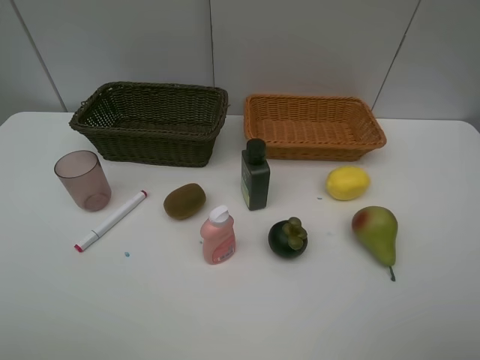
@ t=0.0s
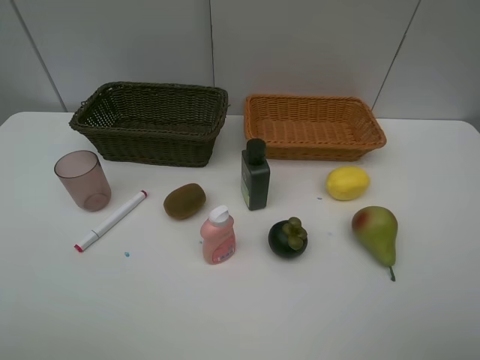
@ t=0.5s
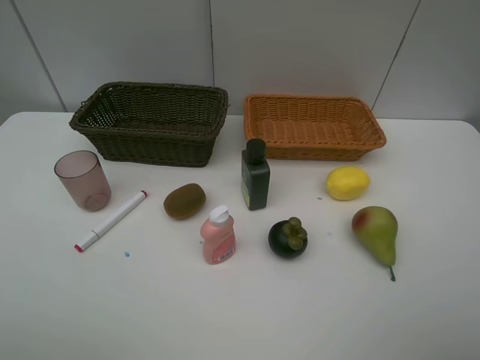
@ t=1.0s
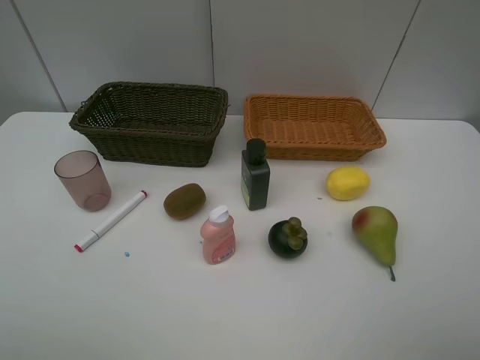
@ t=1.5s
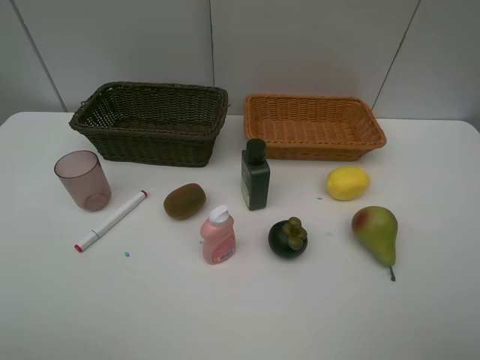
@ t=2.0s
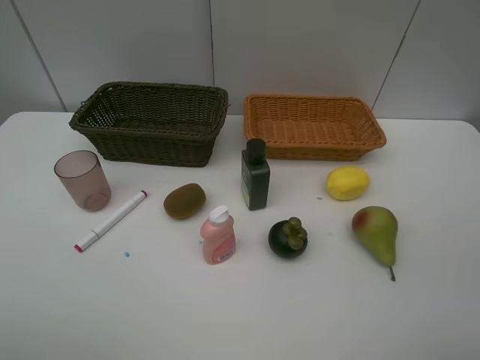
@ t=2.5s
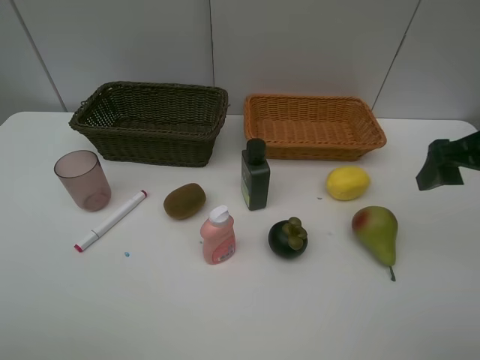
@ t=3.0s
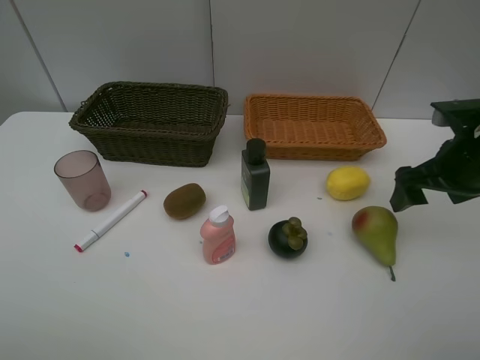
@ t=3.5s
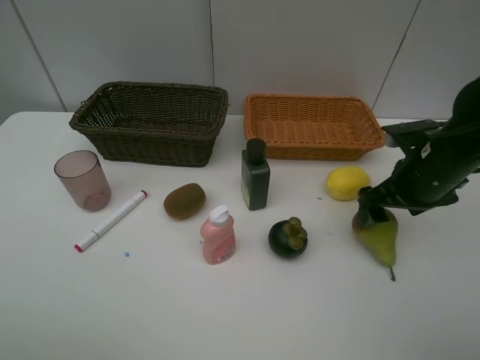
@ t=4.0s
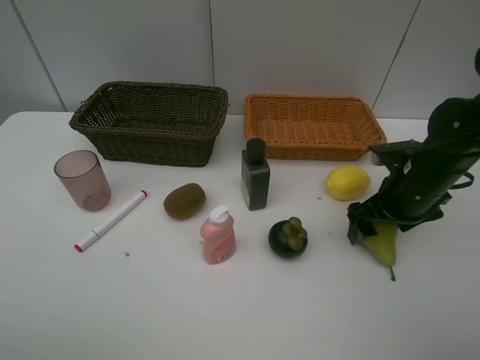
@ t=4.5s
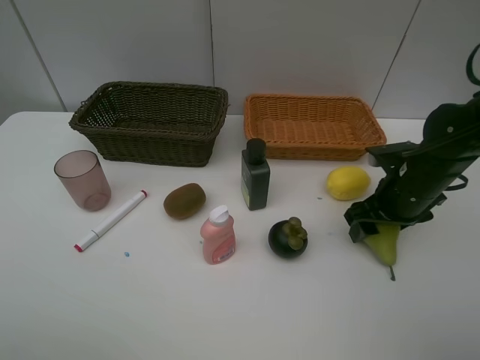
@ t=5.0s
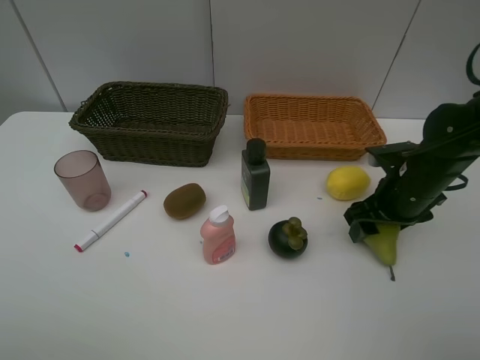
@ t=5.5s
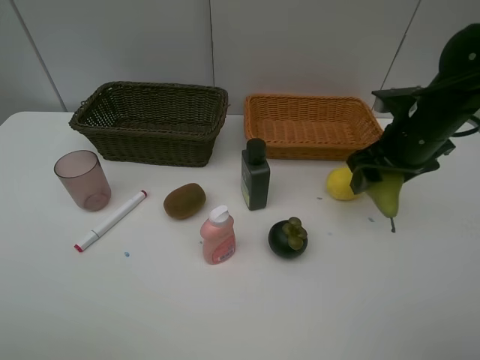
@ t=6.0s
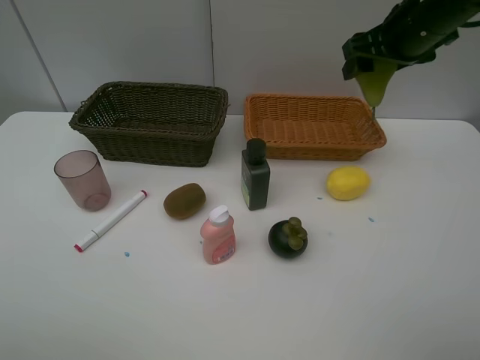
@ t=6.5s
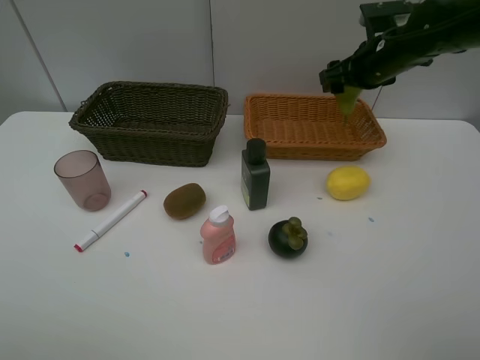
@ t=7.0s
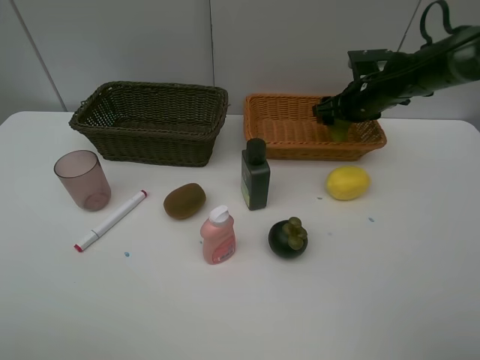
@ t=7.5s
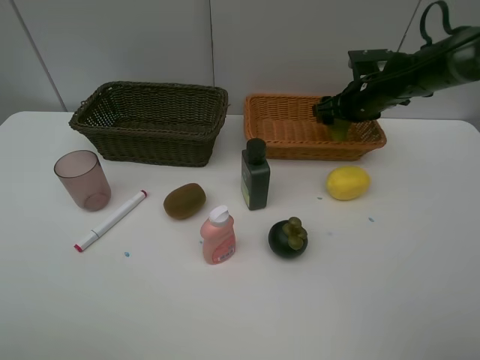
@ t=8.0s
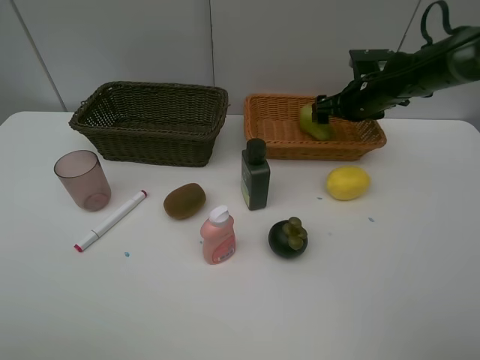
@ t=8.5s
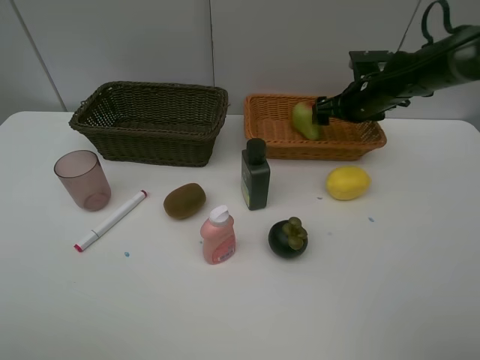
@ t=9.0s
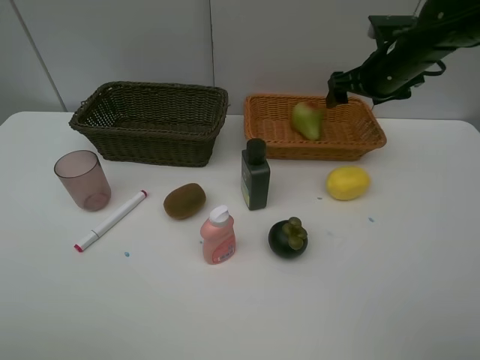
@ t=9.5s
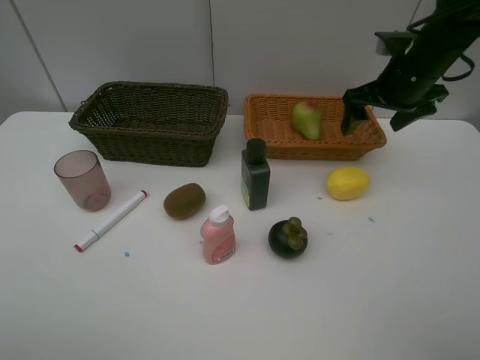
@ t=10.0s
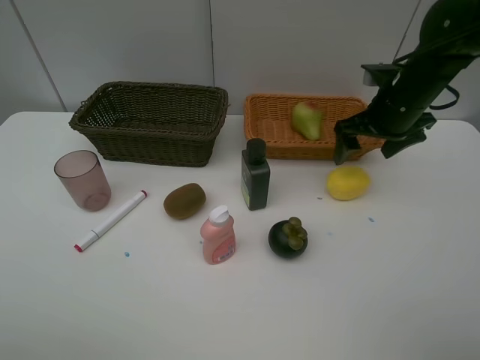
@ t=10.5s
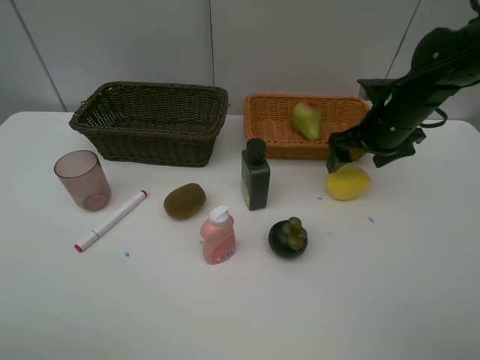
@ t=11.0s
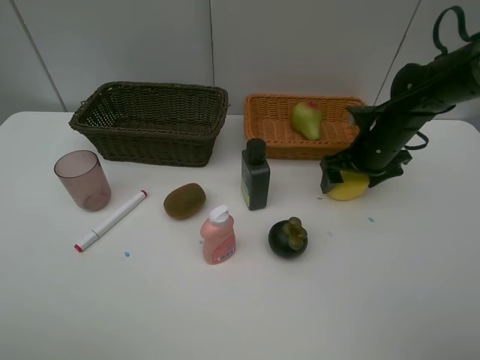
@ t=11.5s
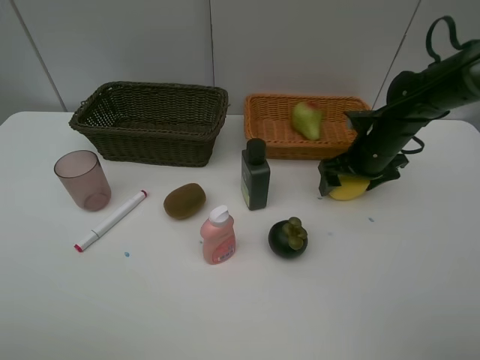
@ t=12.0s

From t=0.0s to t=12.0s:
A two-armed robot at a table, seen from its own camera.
Task of the whole recording: Place multiple objects separately in different baskets.
Step, from t=0.0s to t=5.5s: Pick up the pear with right gripper.
Step, from t=6.0s to t=9.0s: Place the pear in the light basket with right gripper.
From t=2.0s to t=4.0s: The right gripper shifts some 30 cm forward and downward.
From t=4.0s to t=6.0s: The right gripper moves approximately 5 cm.
From t=6.0s to t=8.0s: The right gripper travels forward by some 15 cm, and goes upward and returns, roughly 10 cm each way.
From t=8.0s to t=10.0s: The right gripper moves upward and backward, approximately 10 cm.
From t=10.0s to t=12.0s: The right gripper moves downward, approximately 10 cm.

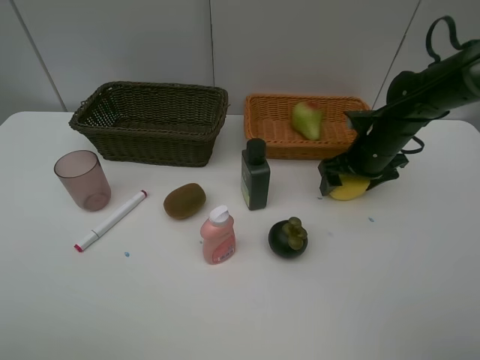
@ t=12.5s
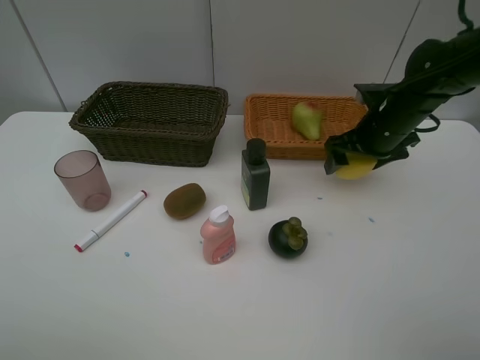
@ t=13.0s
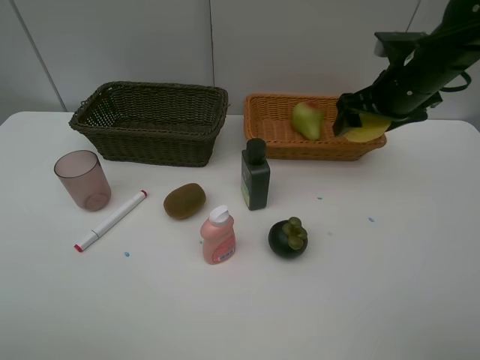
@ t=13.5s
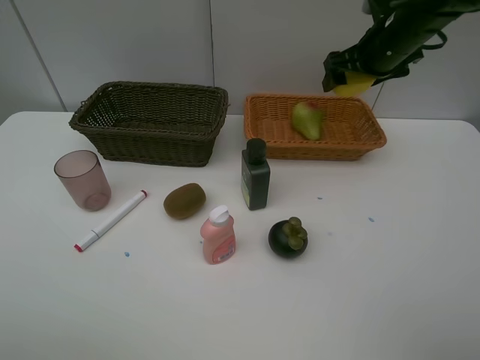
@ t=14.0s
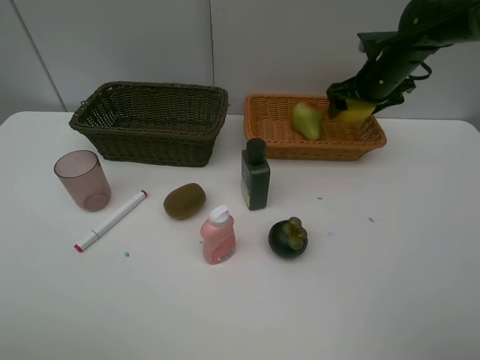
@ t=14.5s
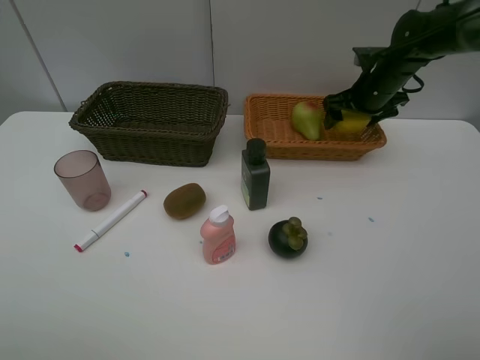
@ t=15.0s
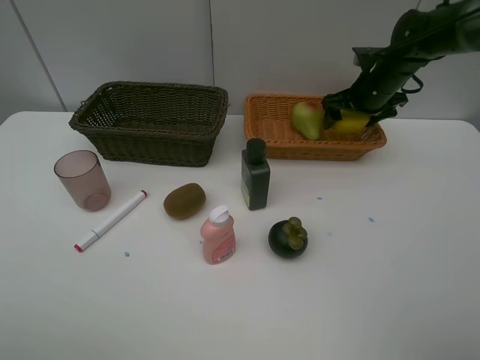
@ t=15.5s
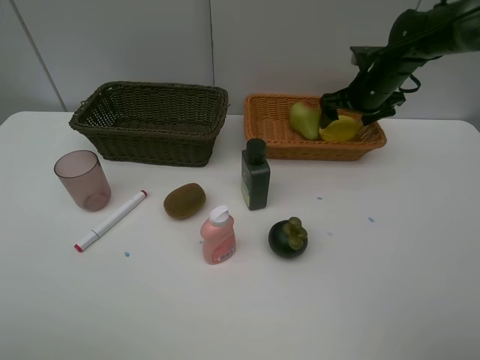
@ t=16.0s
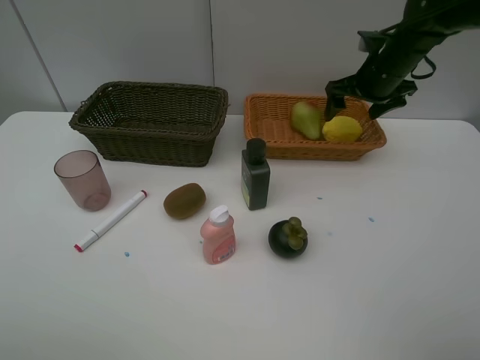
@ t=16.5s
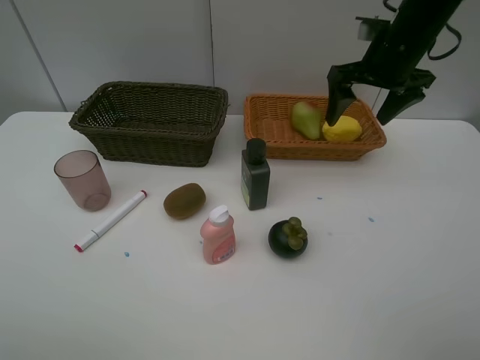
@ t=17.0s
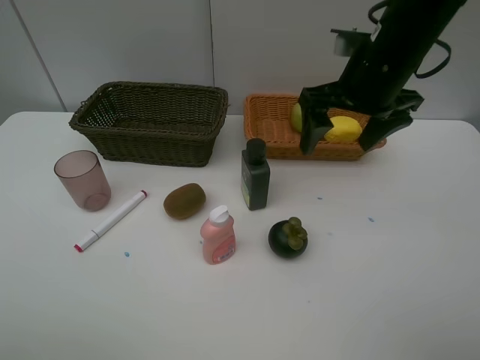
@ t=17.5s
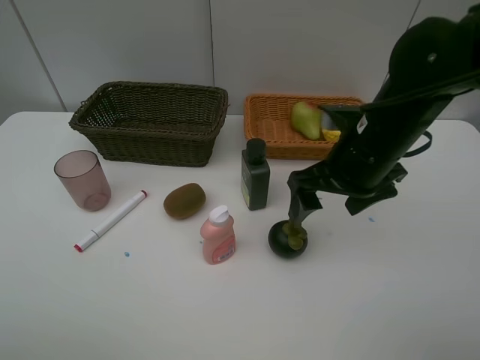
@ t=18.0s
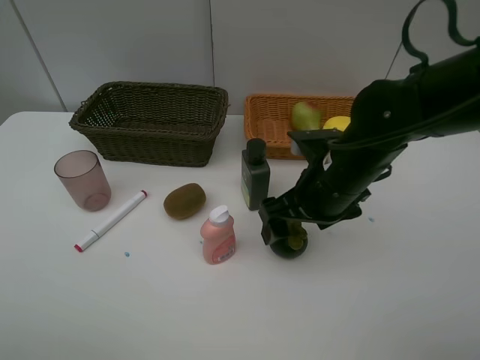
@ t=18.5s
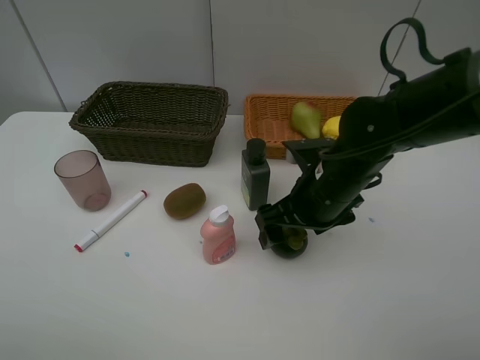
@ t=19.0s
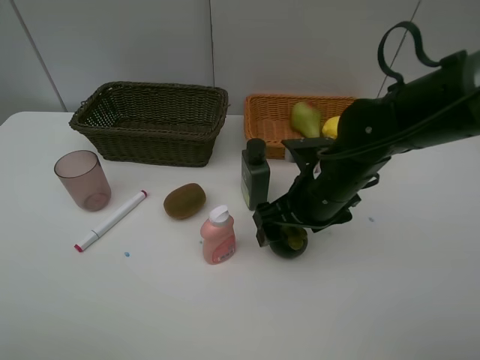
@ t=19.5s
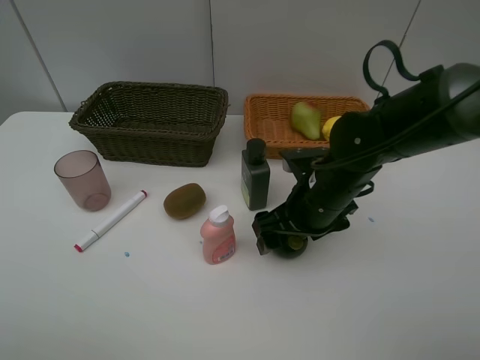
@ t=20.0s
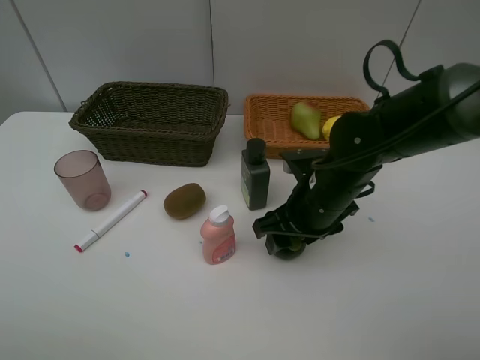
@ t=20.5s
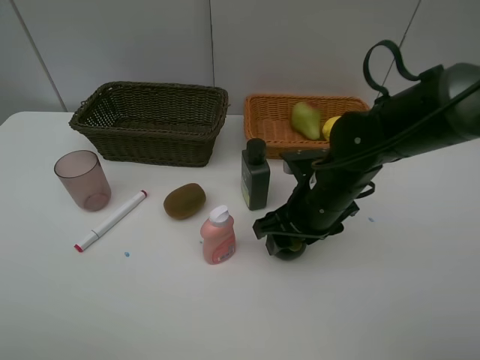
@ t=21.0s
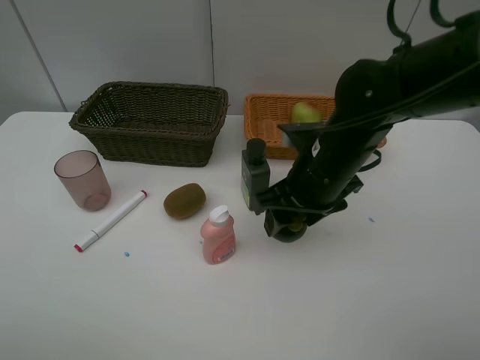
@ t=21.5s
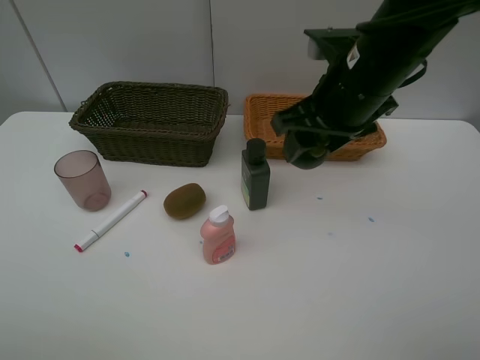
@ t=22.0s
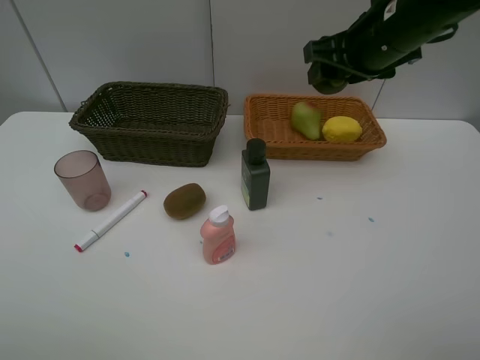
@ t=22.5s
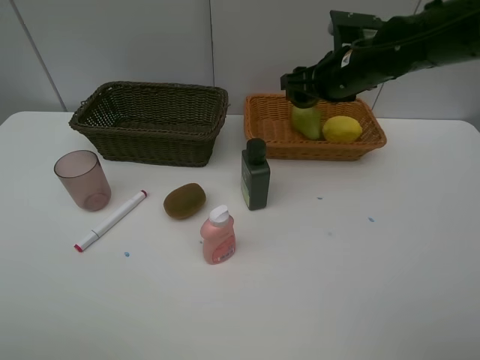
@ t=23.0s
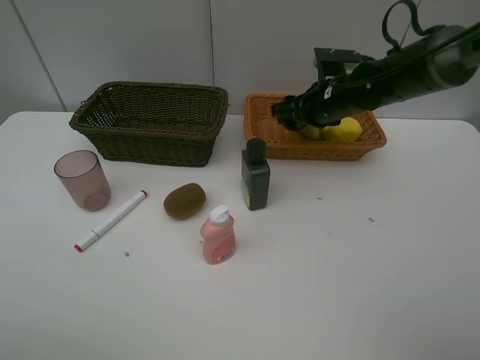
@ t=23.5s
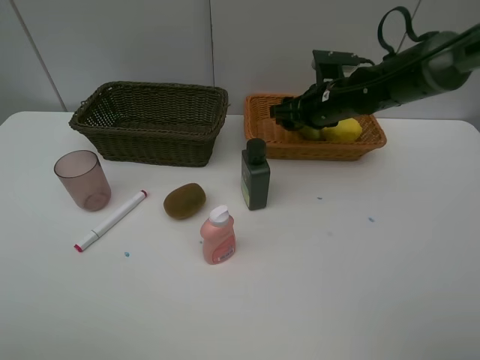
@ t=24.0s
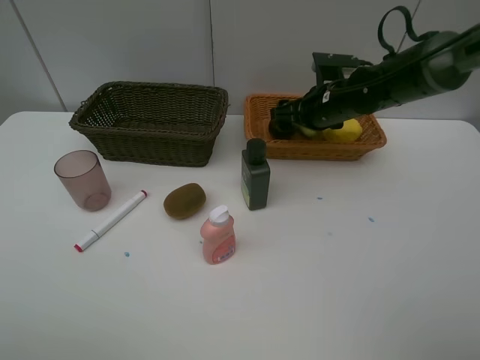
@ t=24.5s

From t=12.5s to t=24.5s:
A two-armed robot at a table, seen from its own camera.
Task of the whole recording: Place multiple objects separately in different baskets.
Step, from t=13.0s to t=16.0s: Place the lemon in the light basket with right gripper.
Step, from t=16.5s to t=20.5s: Pick up the mangosteen with right gripper.
From t=12.5s to t=14.5s: The right gripper shifts roughly 10 cm forward and upward.
From t=14.5s to t=16.5s: There are only small adjustments of the grippers.
From t=16.5s to t=18.5s: The right gripper heads backward and to the left, covering roughly 25 cm.
From t=18.5s to t=20.5s: The right gripper closes.
From t=20.5s to t=22.5s: The right gripper moves upward and forward, approximately 20 cm.
From t=22.5s to t=24.5s: The right gripper shifts approximately 15 cm downward and forward.

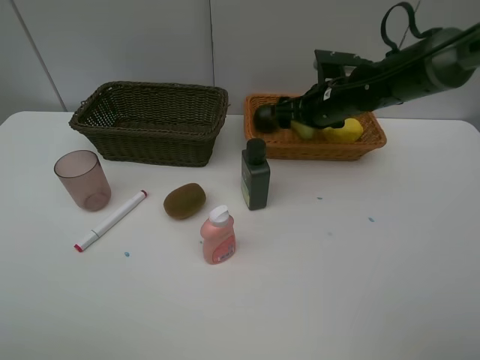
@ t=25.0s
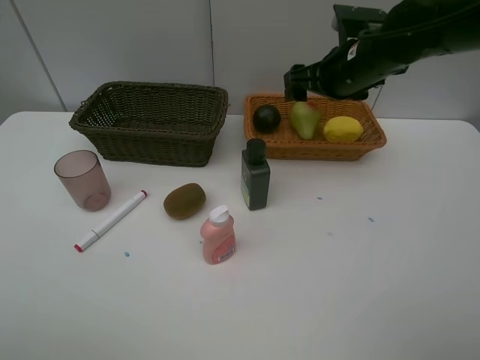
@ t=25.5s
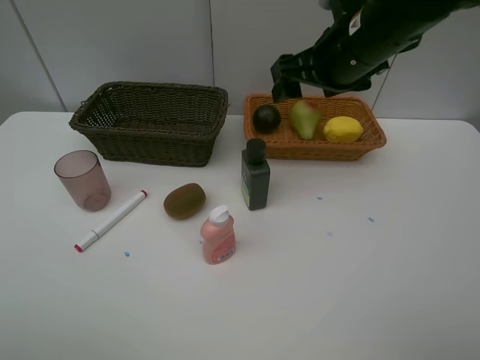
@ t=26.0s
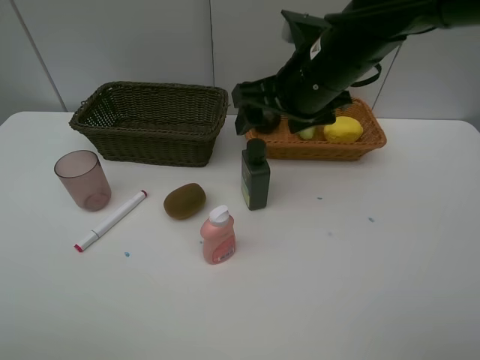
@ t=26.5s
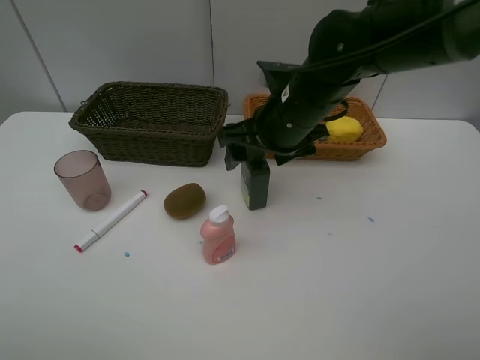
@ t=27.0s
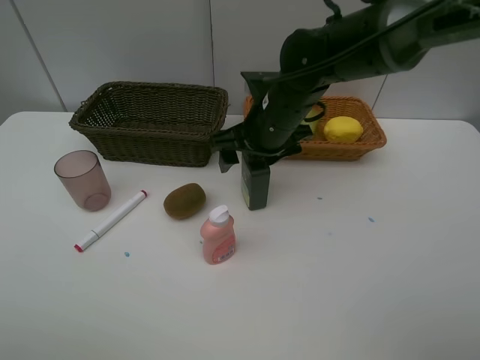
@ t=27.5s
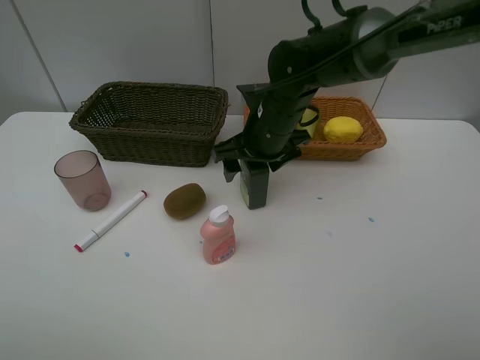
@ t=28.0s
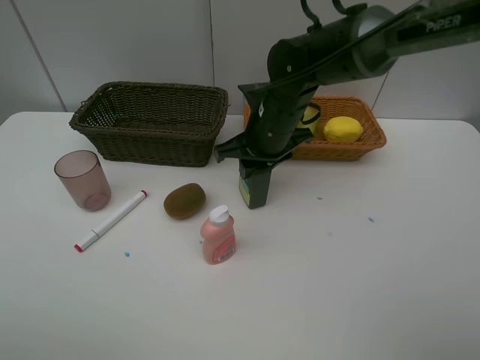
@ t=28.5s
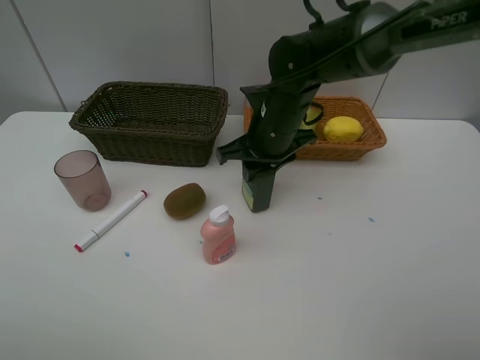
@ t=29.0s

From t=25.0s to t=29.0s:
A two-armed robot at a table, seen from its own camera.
Task of the whole recording: Place multiple objects separately in different baskets.
Step, from t=25.5s to t=28.5s: Pick up the hard facial cleanser with right gripper.
From t=25.0s to t=27.0s: The right gripper heads backward and to the left, covering some 15 cm, and travels upward and back again, about 10 cm each way.
From t=27.0s to t=29.0s: The right gripper closes up.
